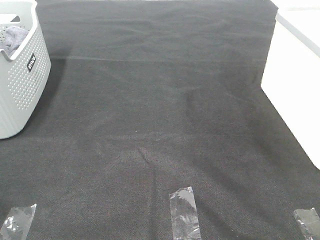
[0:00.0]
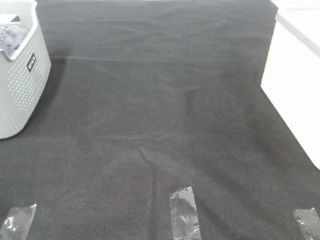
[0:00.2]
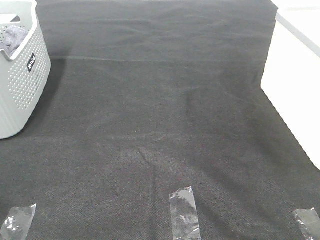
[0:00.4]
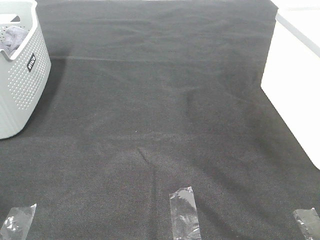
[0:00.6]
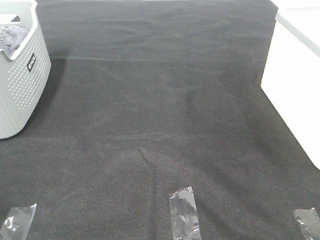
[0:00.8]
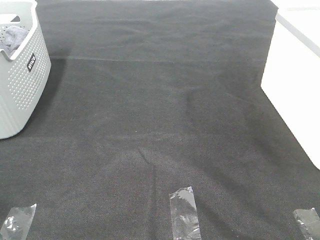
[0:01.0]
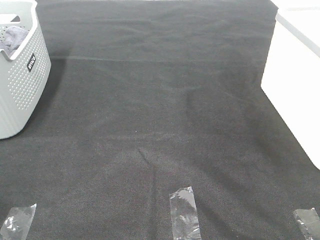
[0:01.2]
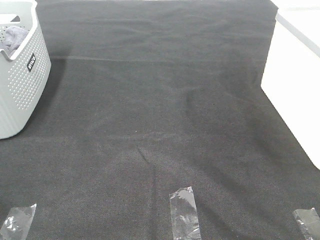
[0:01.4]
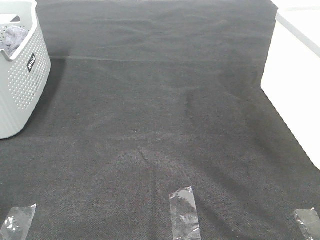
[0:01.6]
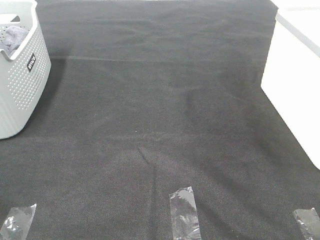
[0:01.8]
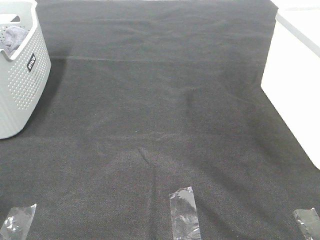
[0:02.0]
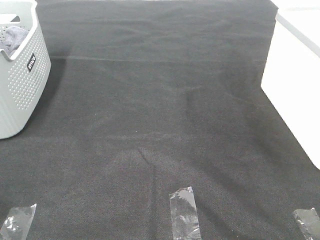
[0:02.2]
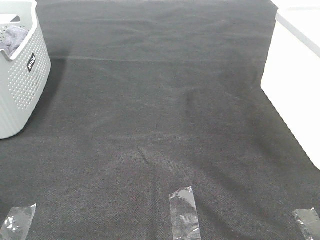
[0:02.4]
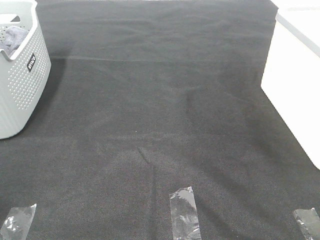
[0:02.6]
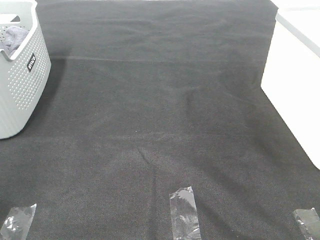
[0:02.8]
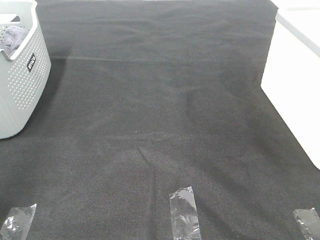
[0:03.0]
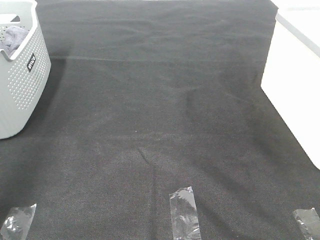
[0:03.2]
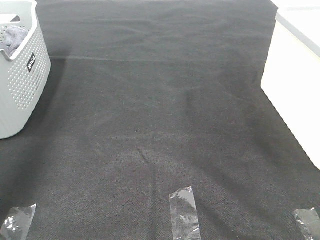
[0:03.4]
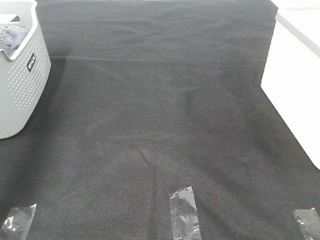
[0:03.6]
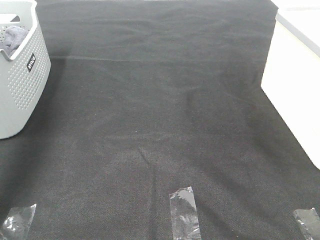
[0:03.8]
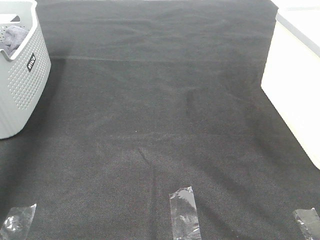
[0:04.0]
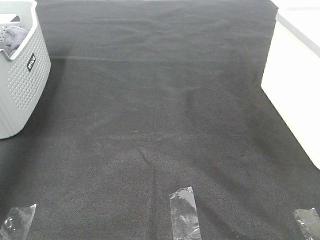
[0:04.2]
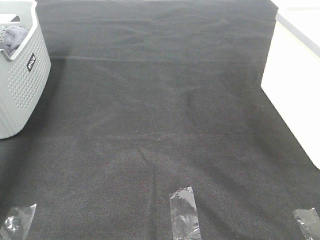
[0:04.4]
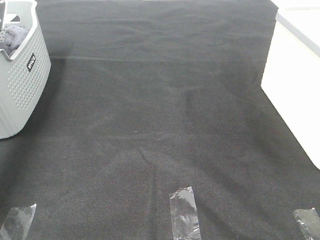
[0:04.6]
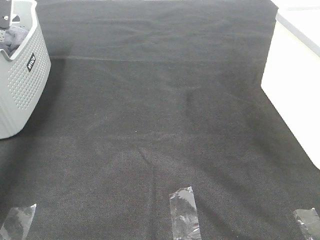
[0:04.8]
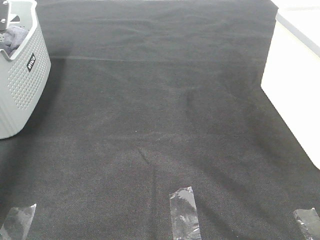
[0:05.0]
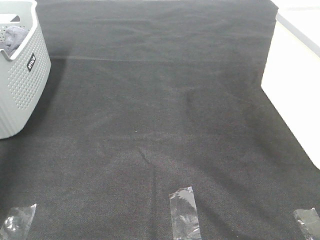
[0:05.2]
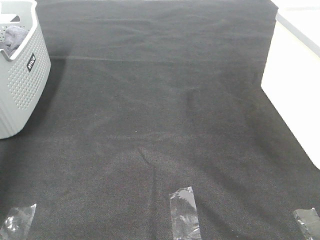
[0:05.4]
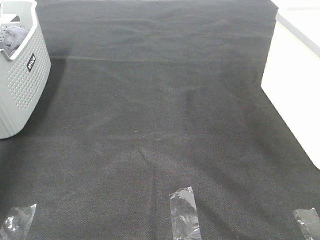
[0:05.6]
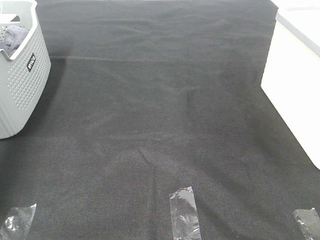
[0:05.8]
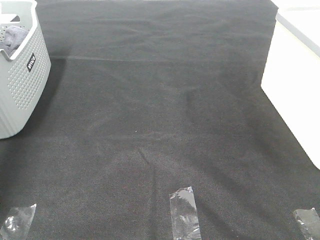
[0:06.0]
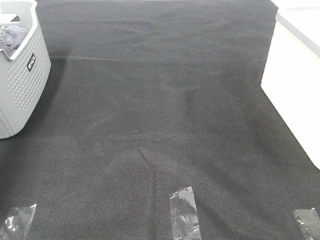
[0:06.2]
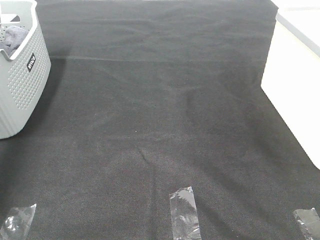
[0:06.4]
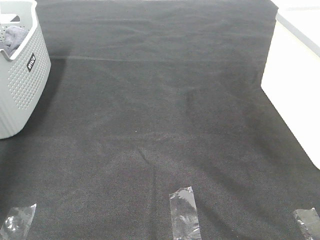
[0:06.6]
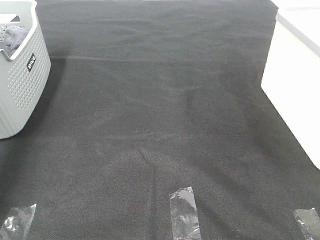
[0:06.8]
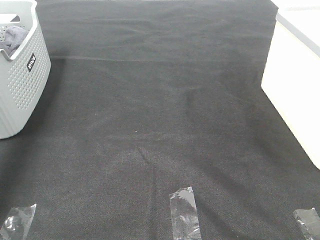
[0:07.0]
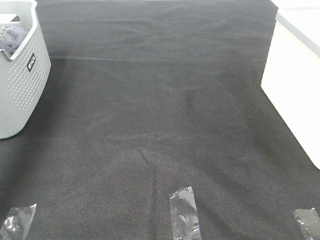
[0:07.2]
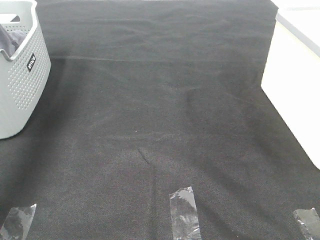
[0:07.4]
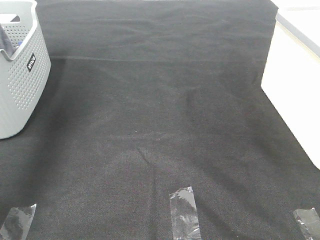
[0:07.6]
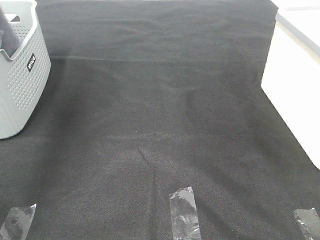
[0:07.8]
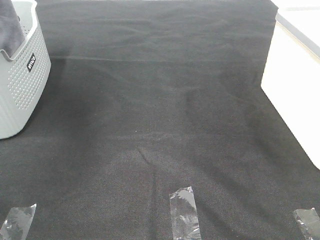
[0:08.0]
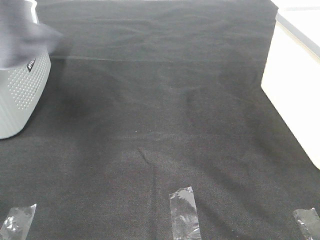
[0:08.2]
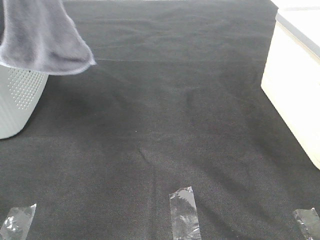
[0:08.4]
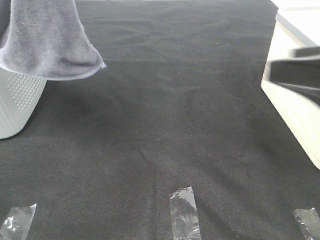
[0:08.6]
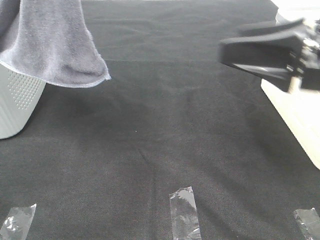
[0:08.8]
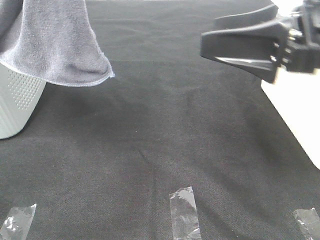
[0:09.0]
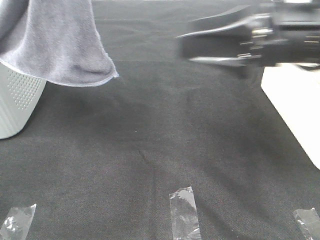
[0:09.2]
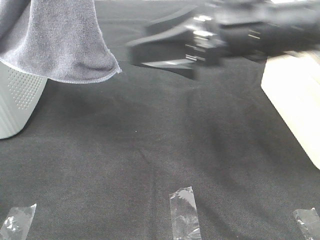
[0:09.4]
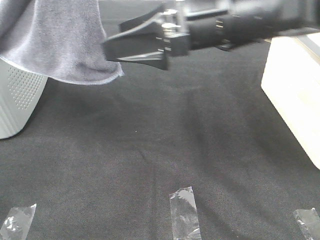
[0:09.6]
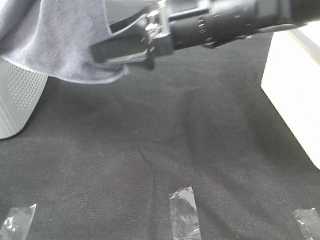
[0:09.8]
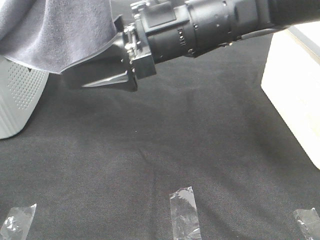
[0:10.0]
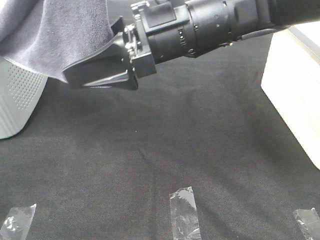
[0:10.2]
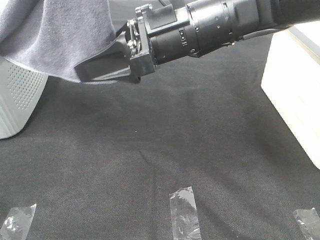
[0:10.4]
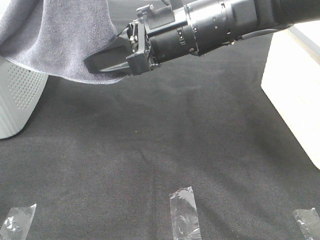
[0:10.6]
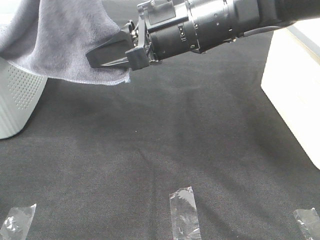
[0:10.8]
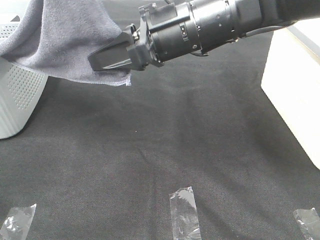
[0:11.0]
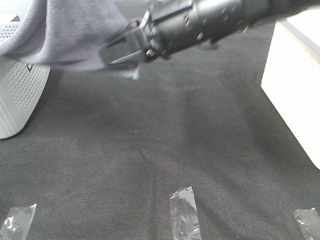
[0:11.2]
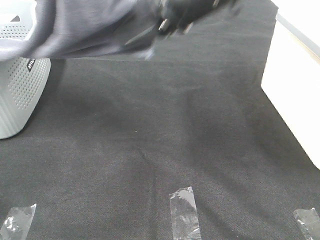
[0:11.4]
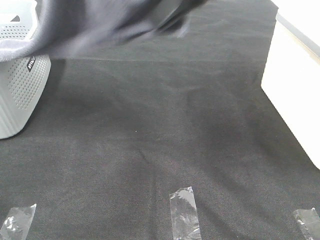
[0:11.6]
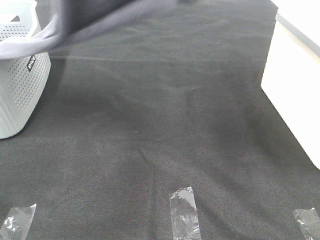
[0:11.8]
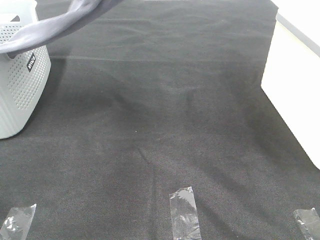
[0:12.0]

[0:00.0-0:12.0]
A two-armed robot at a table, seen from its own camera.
Task of the whole recording: Remove the towel and place it.
Step, 7.6 to 10.6 s: Right hand: grab a corner of the grey towel and straighten it.
0.0 to 1.6 s: Both grippers stay put.
3.0 to 4.4 s: The left gripper heads forward, covering roughly 35 cm.
6.0 to 7.6 s: The left gripper heads upward, backward and to the right, covering about 30 cm.
7.6 to 9.0 s: The right gripper moves forward, approximately 25 cm, while the left gripper heads to the right and backward, covering about 20 cm.
9.0 to 10.4 s: The right gripper is displaced to the left and forward by some 15 cm, and closes its fingers.
10.4 to 12.0 s: The right gripper is displaced upward by approximately 20 cm, and closes up.

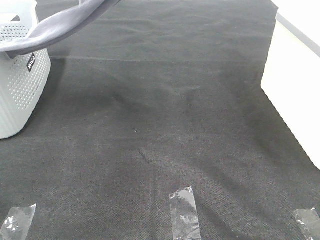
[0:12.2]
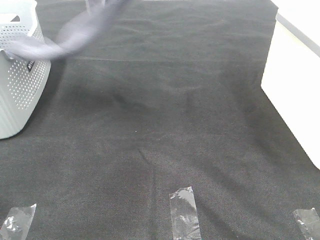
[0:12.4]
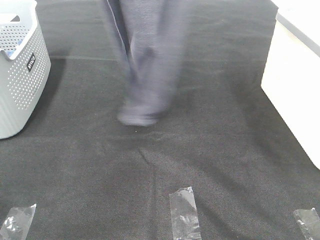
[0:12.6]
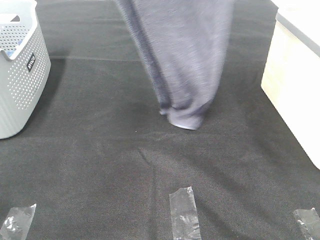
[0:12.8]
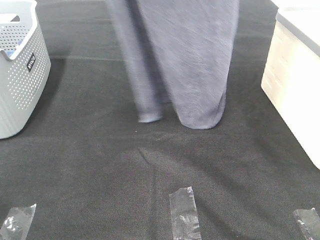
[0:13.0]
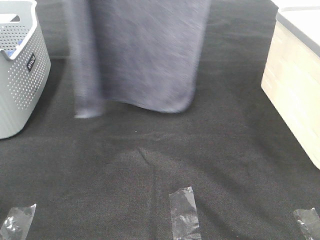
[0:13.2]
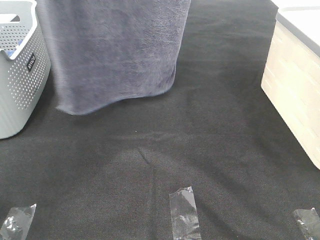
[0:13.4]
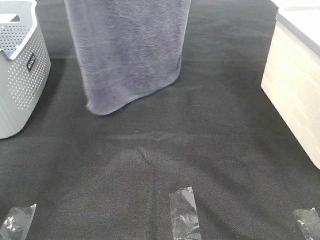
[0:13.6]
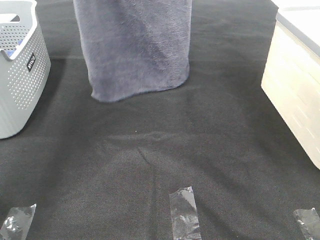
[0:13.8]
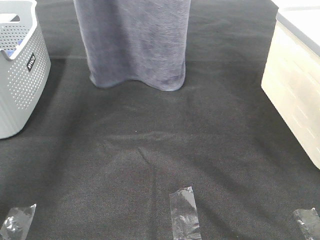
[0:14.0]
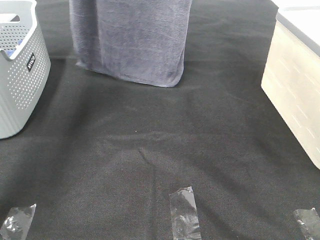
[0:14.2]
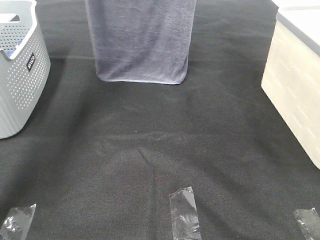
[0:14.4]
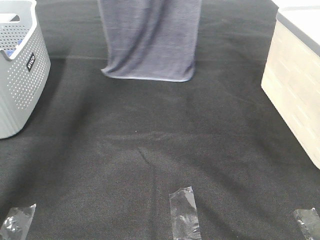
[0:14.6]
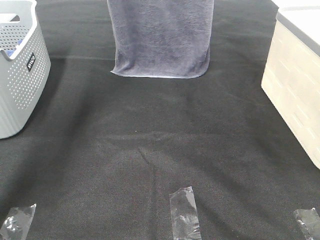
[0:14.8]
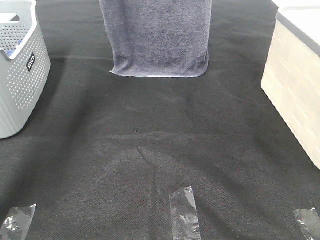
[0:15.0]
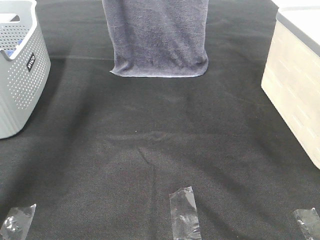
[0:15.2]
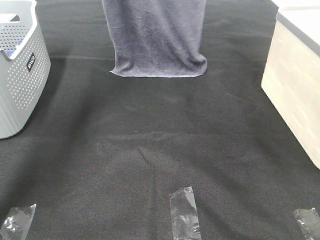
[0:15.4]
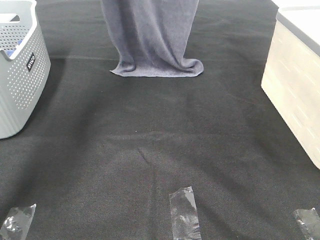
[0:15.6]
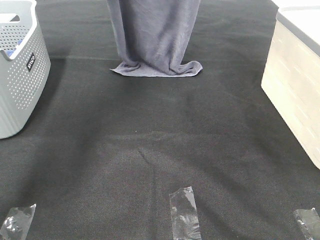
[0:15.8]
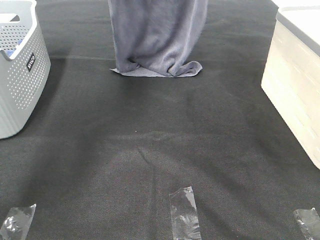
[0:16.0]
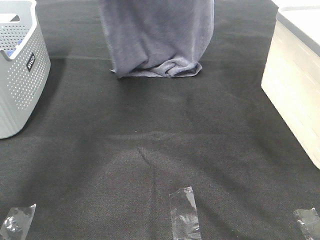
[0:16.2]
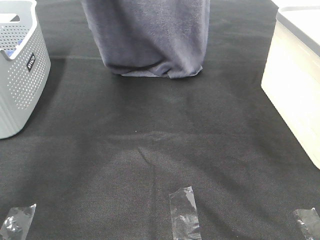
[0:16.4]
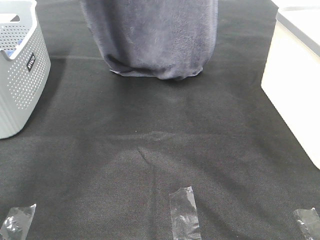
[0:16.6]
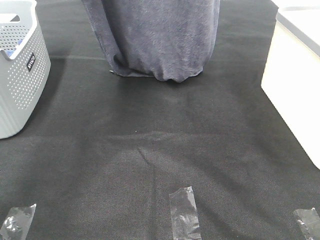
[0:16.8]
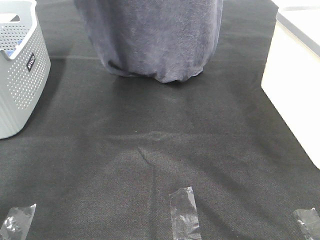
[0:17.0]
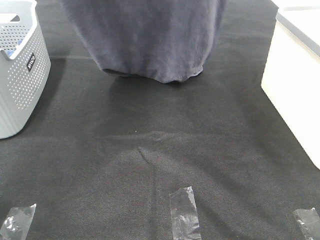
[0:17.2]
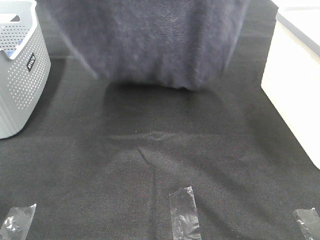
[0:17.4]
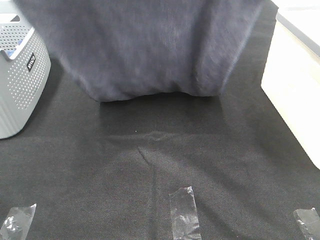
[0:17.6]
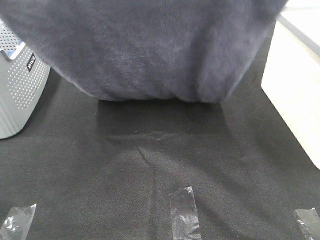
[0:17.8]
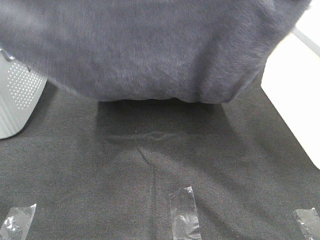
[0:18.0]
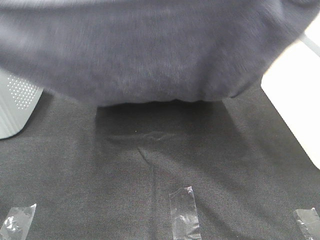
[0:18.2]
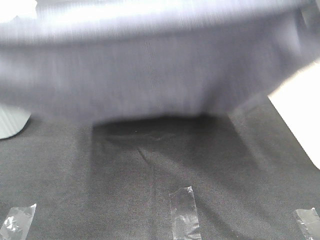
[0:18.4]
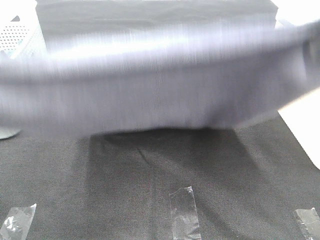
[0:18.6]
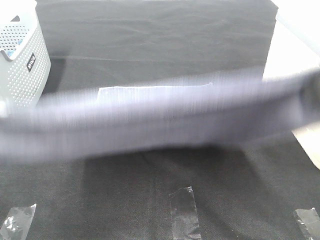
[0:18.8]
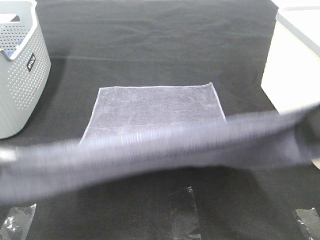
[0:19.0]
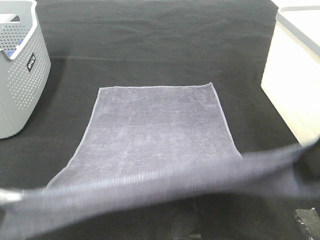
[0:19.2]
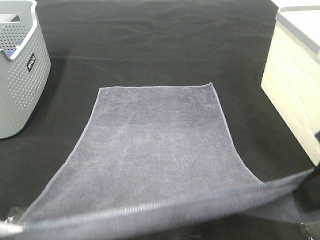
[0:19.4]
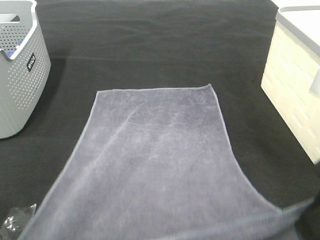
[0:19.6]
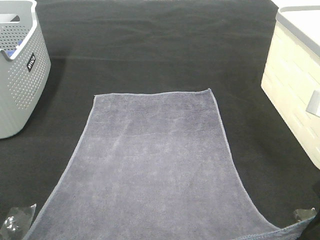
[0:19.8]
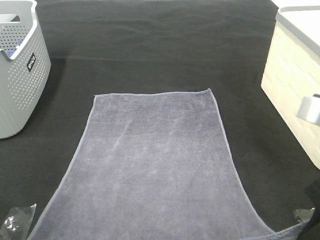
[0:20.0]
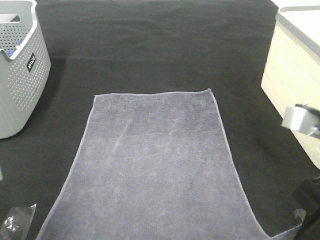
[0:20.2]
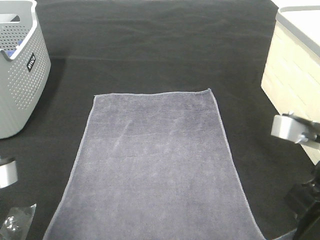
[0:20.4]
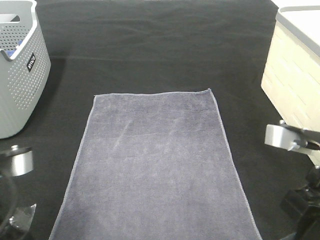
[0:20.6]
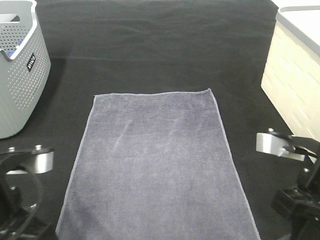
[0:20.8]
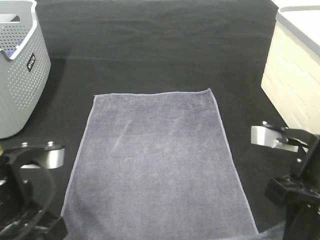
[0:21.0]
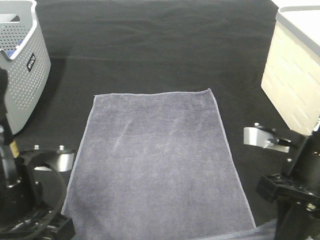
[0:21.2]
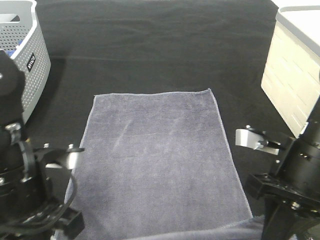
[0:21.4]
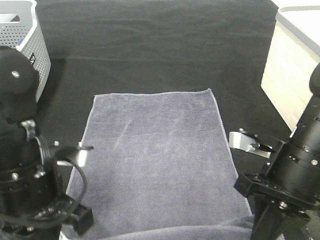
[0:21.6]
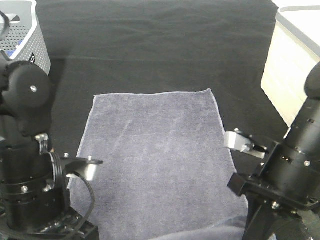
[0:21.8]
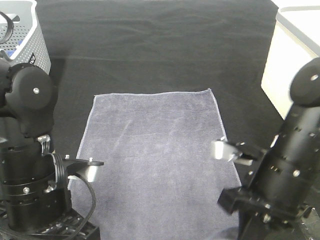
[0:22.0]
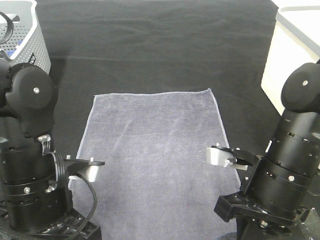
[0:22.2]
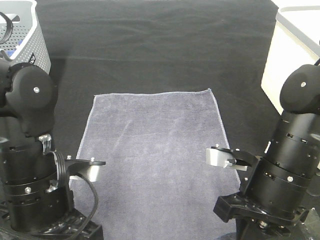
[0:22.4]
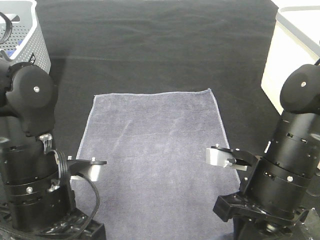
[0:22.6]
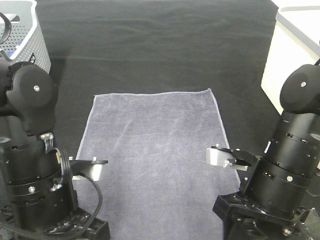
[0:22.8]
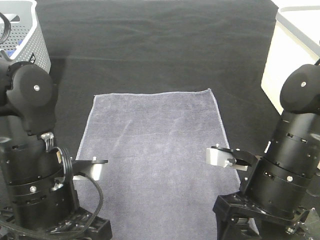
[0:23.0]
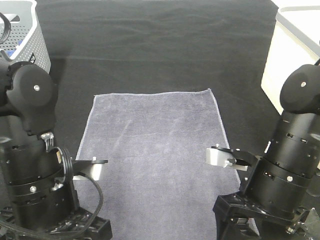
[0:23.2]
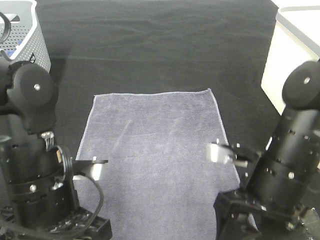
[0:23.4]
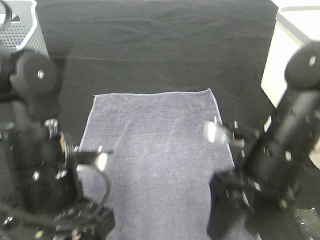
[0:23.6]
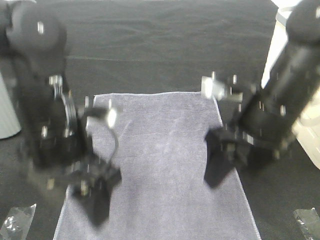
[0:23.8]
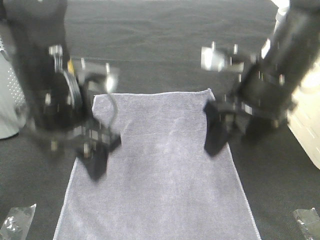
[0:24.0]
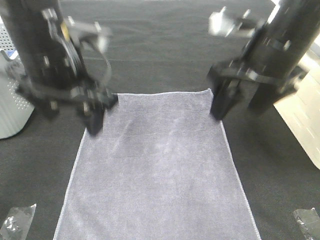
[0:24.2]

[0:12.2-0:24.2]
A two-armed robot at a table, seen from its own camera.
Task of the whole recording: Remove the towel and place it.
Step, 12.2 to 18.4 s: Left hand: spread the grey towel flat on the table.
Step, 12.2 to 18.4 s: Right hand: spread the grey towel flat on the table.
12.2 to 13.8 s: The right gripper shifts approximately 10 cm forward. The left gripper is displaced forward by approximately 15 cm.
13.8 to 15.2 s: The left gripper travels forward by approximately 10 cm, while the right gripper heads forward and to the right, covering roughly 10 cm.
15.2 to 16.6 s: The two grippers go some 10 cm backward.
16.6 to 18.2 s: Both grippers travel together backward, roughly 25 cm.
18.2 to 19.8 s: The right gripper heads downward, covering about 20 cm; the left gripper heads downward and backward, covering roughly 20 cm.
19.8 to 21.2 s: The left gripper heads forward and downward, covering roughly 10 cm. Meanwhile the right gripper shifts roughly 10 cm downward and forward.
21.2 to 22.6 s: The right gripper changes place by some 5 cm.
22.6 to 24.2 s: The grippers both shift upward and forward by roughly 15 cm. The left gripper opens its fingers; the right gripper opens up.
